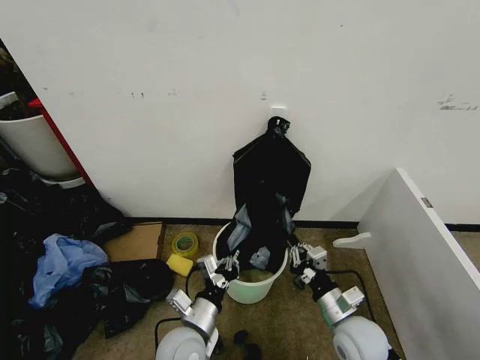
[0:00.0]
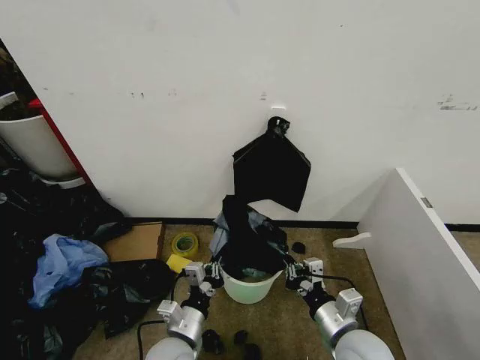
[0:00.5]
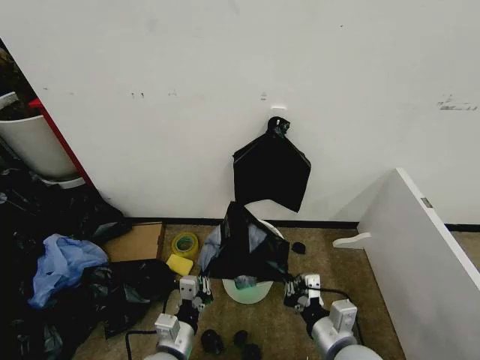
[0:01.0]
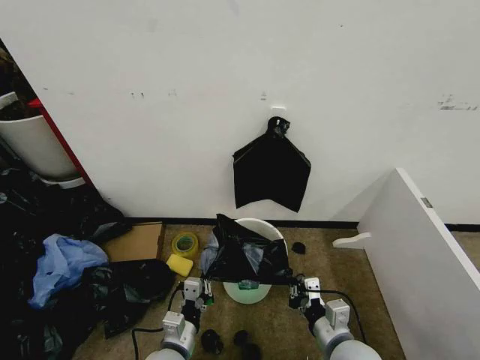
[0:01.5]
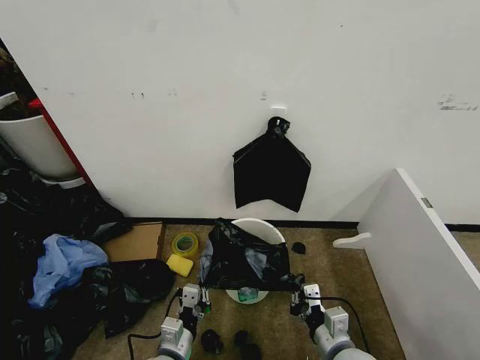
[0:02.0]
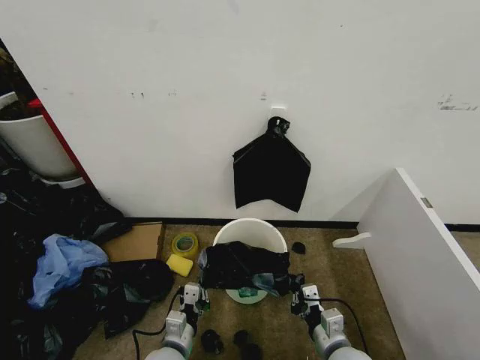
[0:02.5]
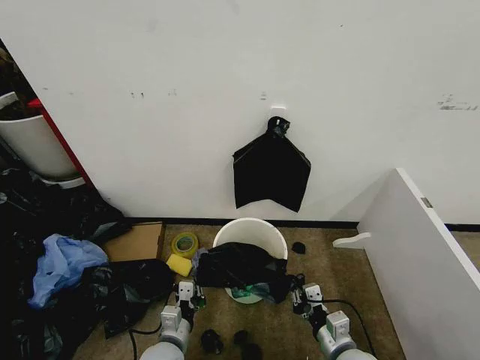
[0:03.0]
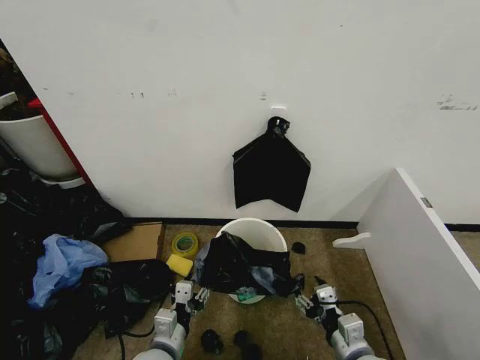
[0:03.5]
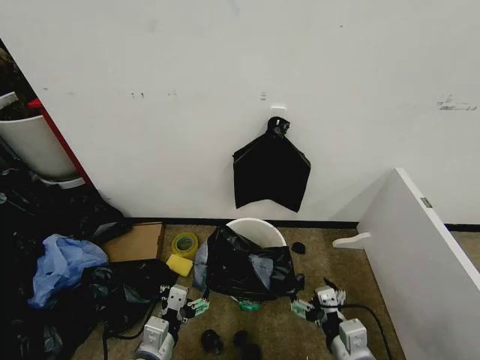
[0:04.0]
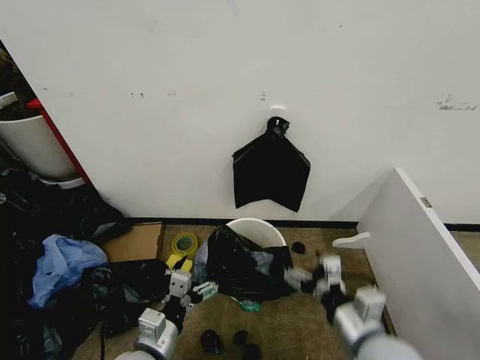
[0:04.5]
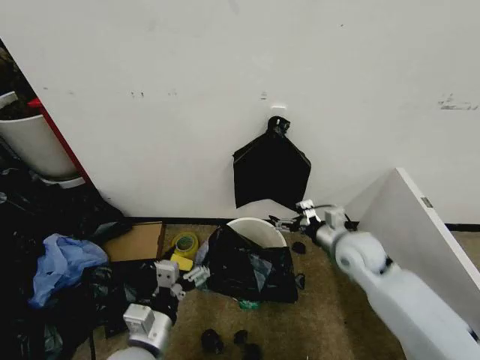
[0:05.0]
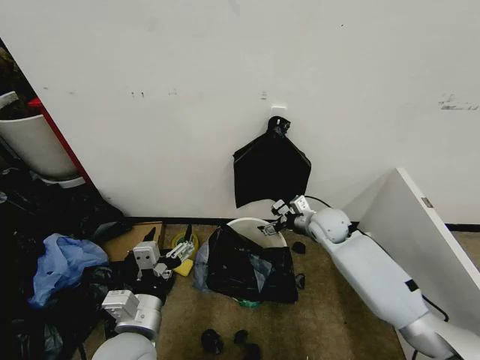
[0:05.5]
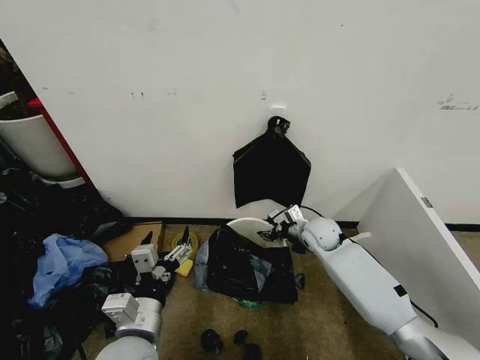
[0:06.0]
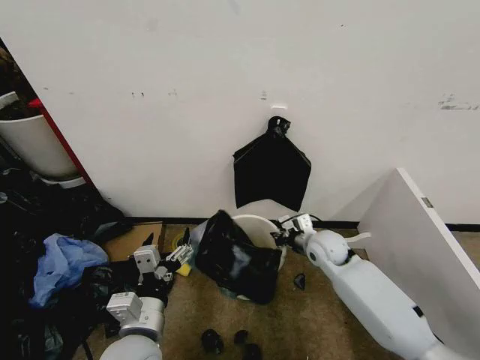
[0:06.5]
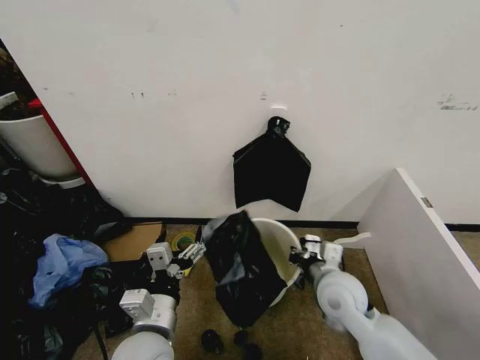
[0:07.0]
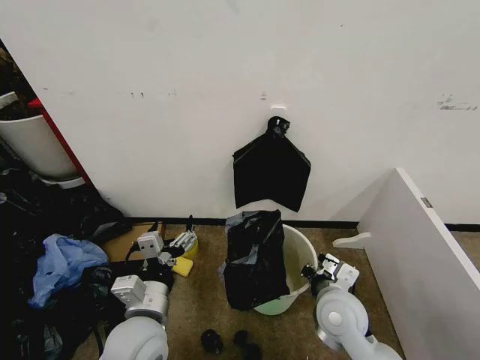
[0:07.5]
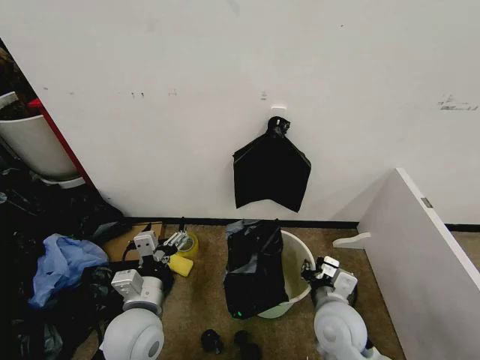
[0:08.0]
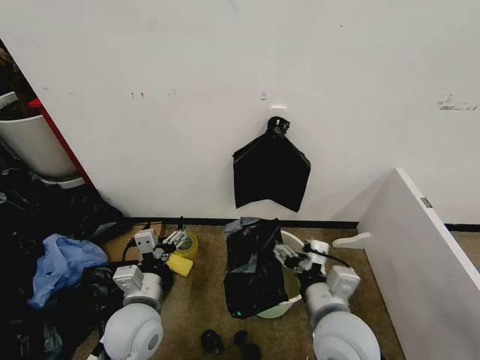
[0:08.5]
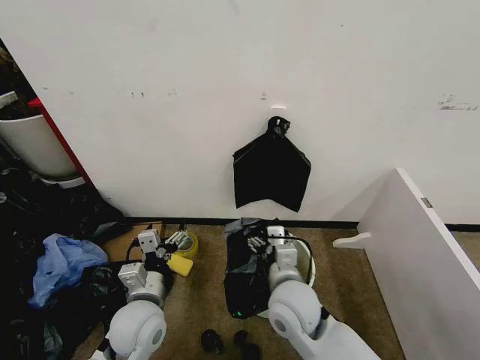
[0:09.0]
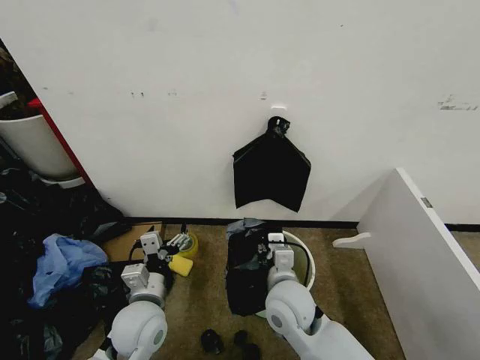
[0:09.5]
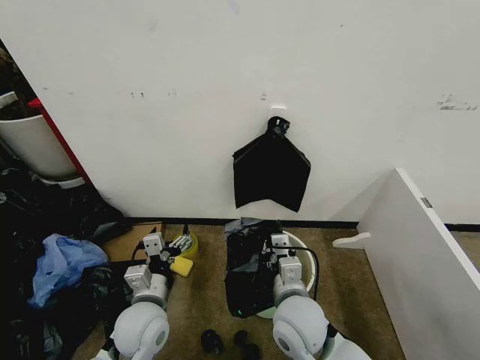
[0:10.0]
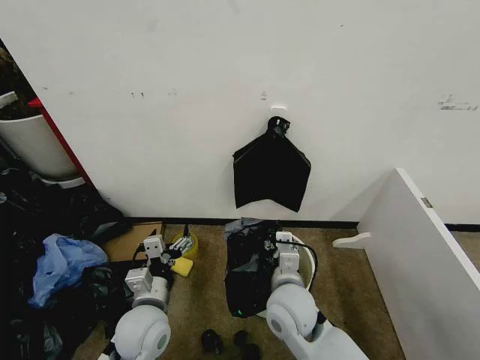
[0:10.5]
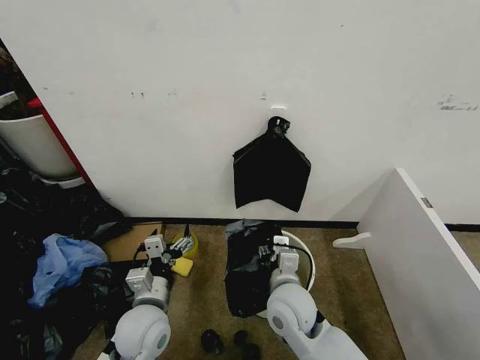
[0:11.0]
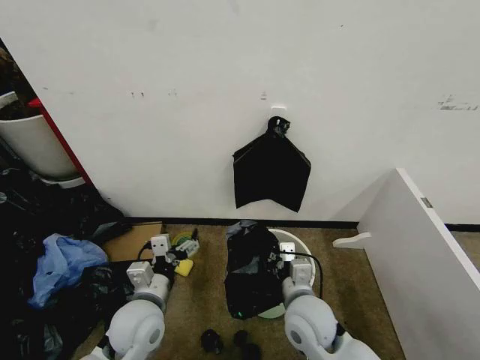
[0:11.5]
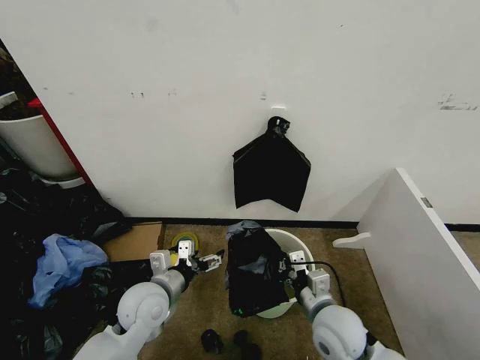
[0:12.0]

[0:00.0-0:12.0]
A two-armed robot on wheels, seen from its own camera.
Task of the whole recording: Place the garbage bag over the trash bin.
0:00.0 to 0:02.0: The left gripper shifts by roughly 10 cm. Meanwhile the right gripper is displaced backward by some 5 cm.
0:02.0 to 0:04.0: The right gripper opens its fingers; the left gripper travels upward by about 5 cm, and opens up.
0:04.0 to 0:06.0: The right gripper shifts roughly 35 cm forward, and closes its fingers. Meanwhile the left gripper is displaced upward by approximately 10 cm.
0:06.0 to 0:08.0: The left gripper is displaced forward by approximately 5 cm. Meanwhile the right gripper shifts roughly 25 cm backward.
0:08.0 to 0:10.0: The right gripper travels to the left by some 10 cm, and opens, then closes once more.
0:10.0 to 0:12.0: The right gripper moves to the right, about 10 cm, and opens, then closes again.

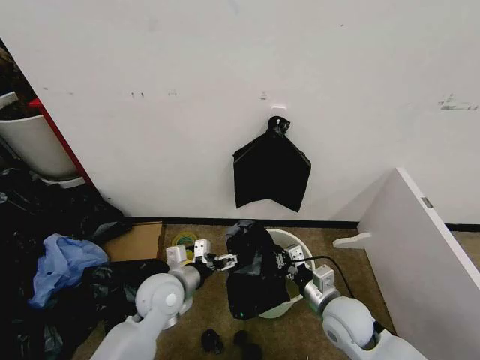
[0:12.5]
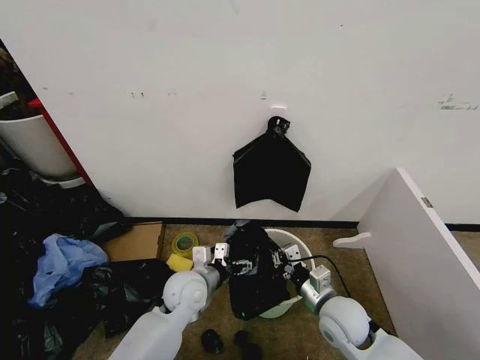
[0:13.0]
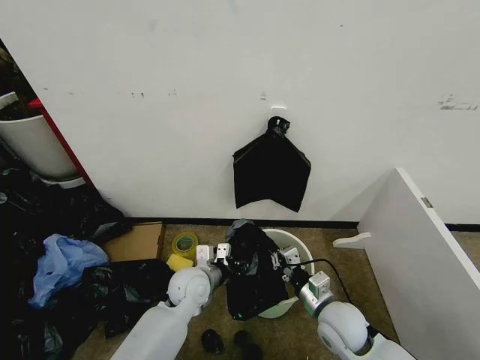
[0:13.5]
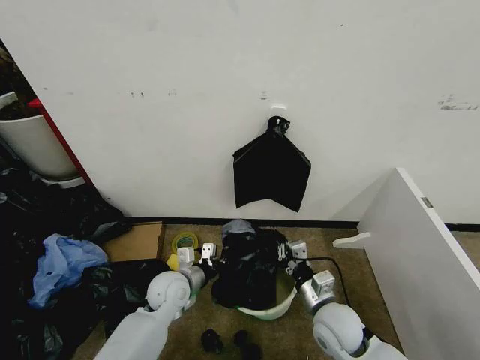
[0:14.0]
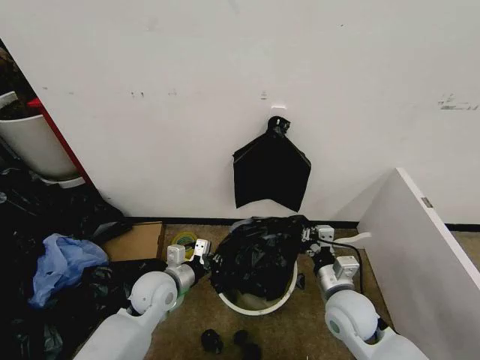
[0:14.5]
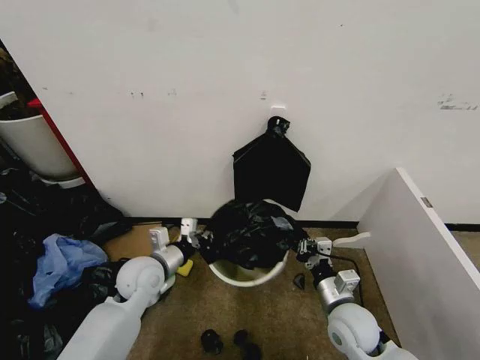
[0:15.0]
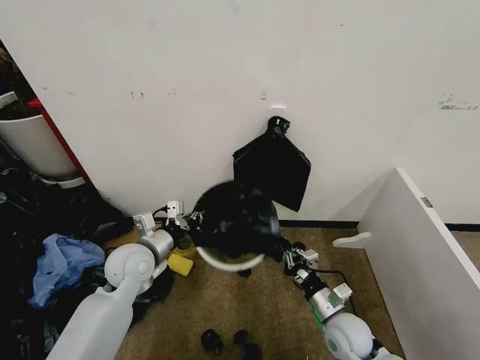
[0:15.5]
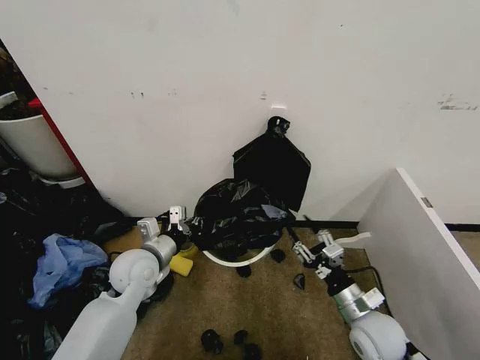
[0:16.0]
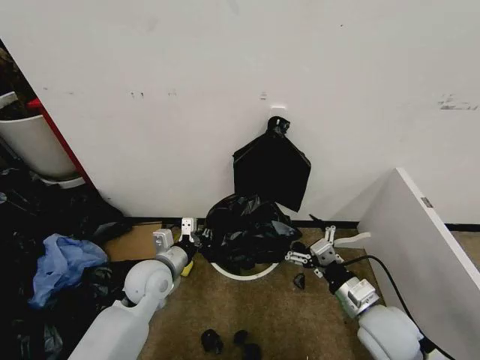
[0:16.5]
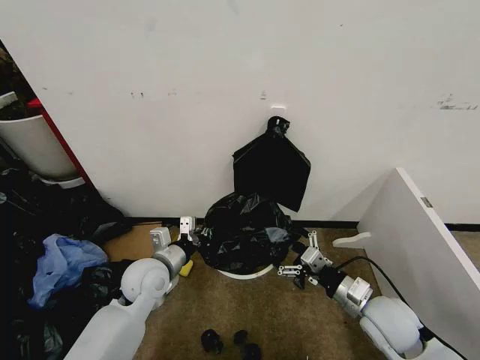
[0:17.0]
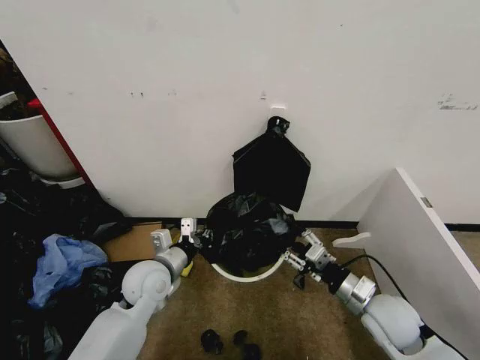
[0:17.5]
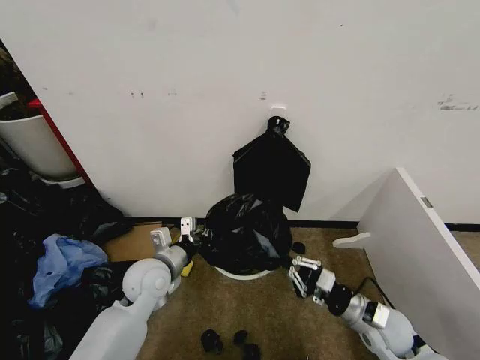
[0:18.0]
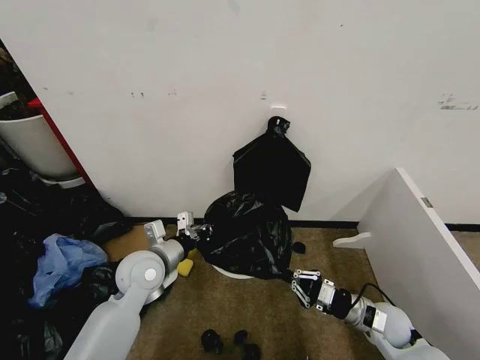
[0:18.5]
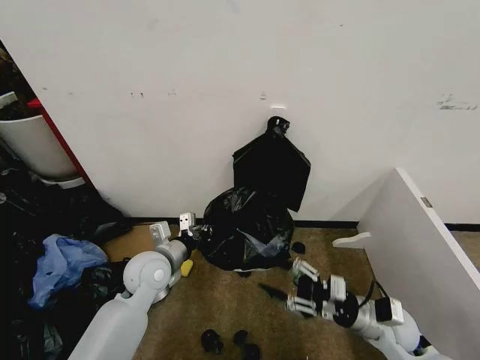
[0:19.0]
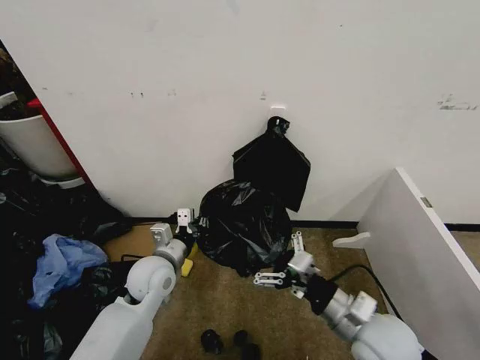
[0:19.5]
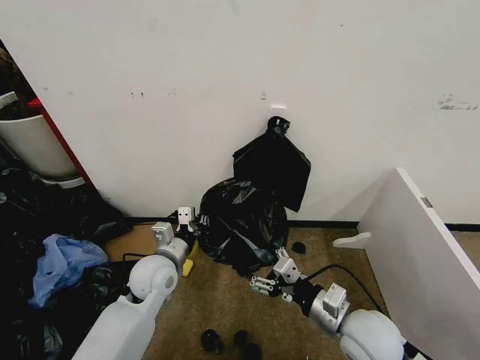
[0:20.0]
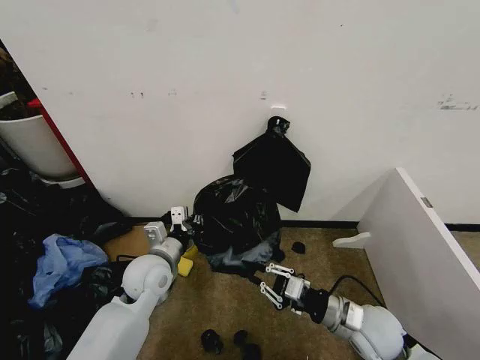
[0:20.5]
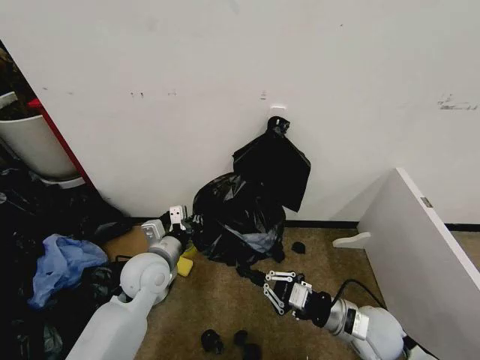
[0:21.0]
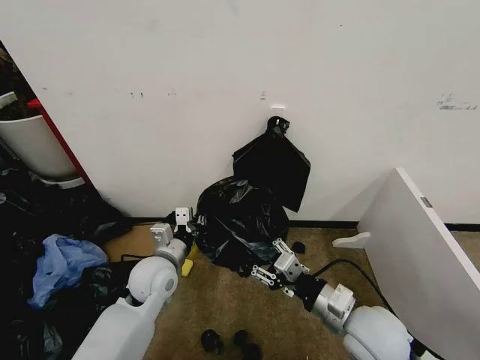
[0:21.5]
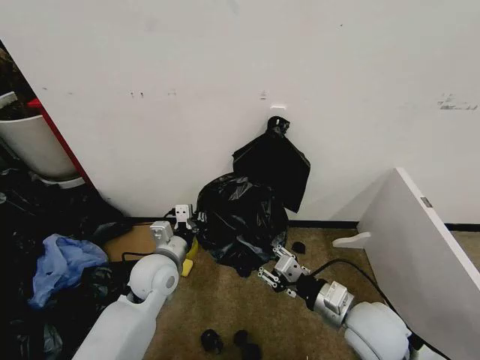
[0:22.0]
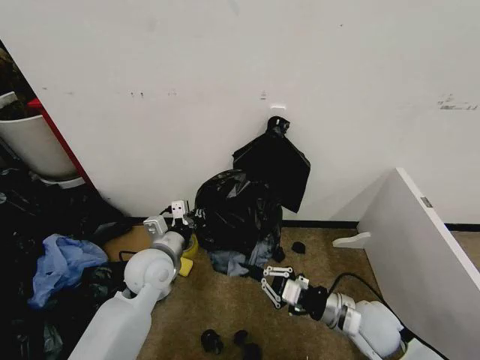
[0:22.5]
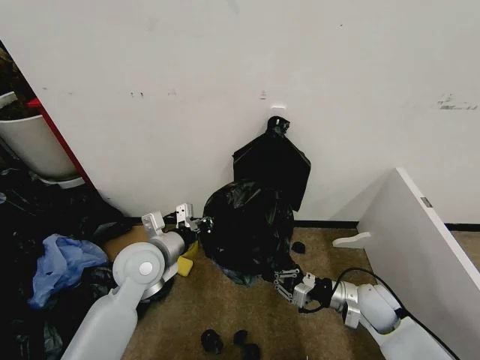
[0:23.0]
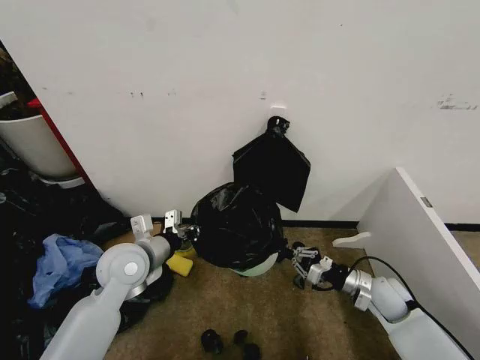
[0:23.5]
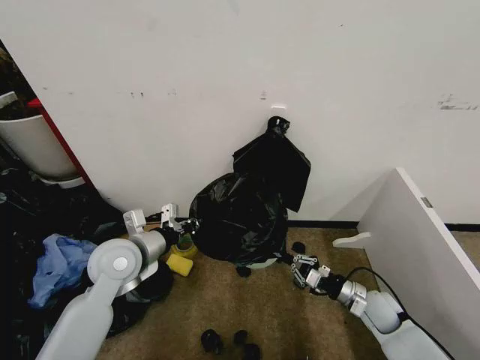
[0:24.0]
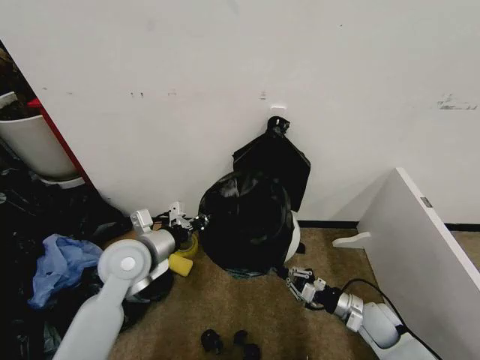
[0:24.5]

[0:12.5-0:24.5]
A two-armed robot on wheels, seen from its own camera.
Task of the whole recording: Place the garbage bag over the trash bin.
0:12.5 to 0:14.5: The left gripper reaches some 5 cm to the right, then returns, and closes its fingers.
0:14.5 to 0:16.5: The right gripper heads to the right, covering roughly 5 cm, goes downward and returns, about 10 cm each way, and opens.
0:16.5 to 0:18.5: The right gripper heads downward and to the right, covering roughly 10 cm, and closes its fingers.
0:18.5 to 0:20.5: The right gripper heads upward and to the left, covering about 10 cm, and opens and closes again.
0:20.5 to 0:22.5: The right gripper opens and closes again.
0:22.5 to 0:24.5: The left gripper ends up some 5 cm from where it was. Meanwhile the right gripper goes approximately 15 cm downward and to the right.

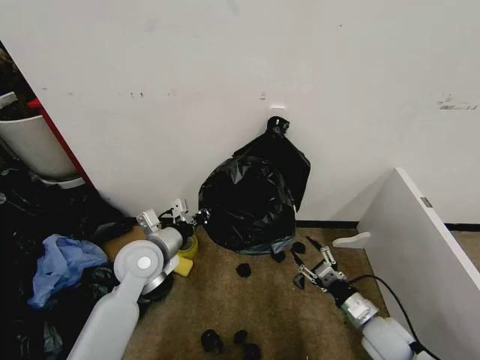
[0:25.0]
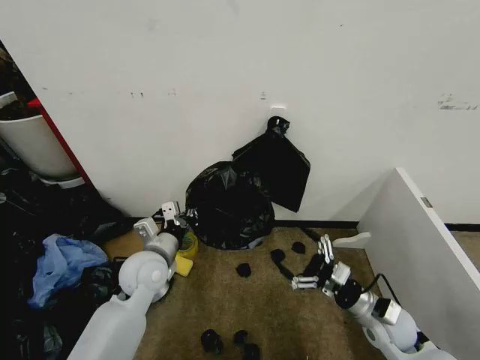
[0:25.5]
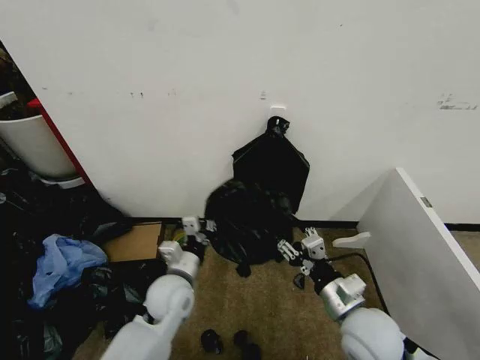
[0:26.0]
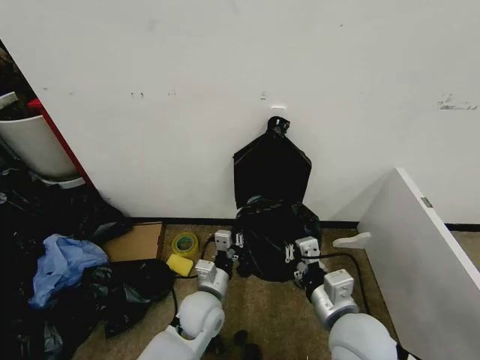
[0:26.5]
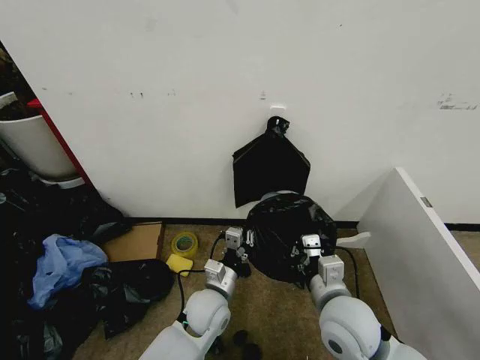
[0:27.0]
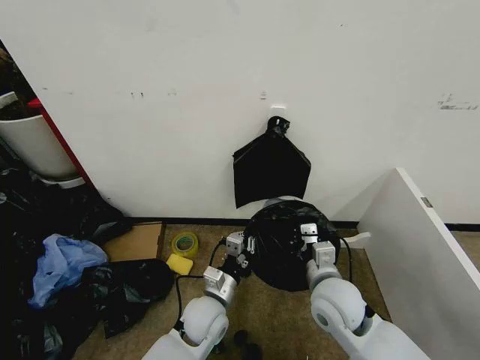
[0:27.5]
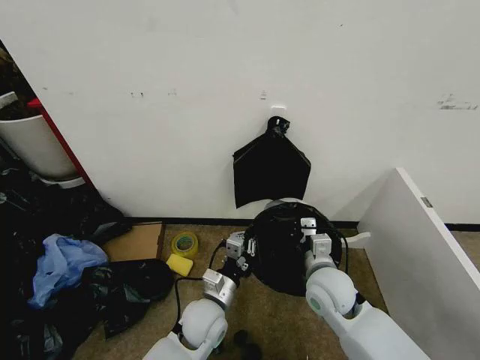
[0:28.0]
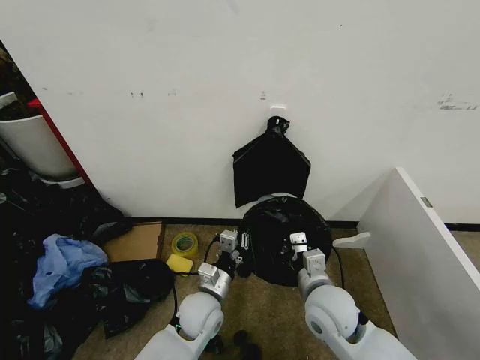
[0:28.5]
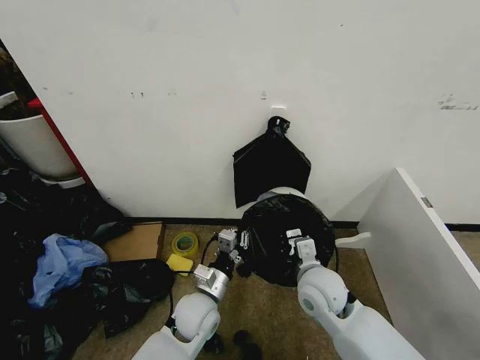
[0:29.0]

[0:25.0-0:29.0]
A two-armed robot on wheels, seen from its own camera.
Task of the whole recording: Place the garbage bag over the trash bin.
0:25.0 to 0:27.0: The right gripper goes some 20 cm upward and to the left, and closes its fingers, while the left gripper heads to the right and downward, covering roughly 20 cm.
0:27.0 to 0:29.0: The right gripper goes forward and backward, some 10 cm each way, reversing 2 times.
